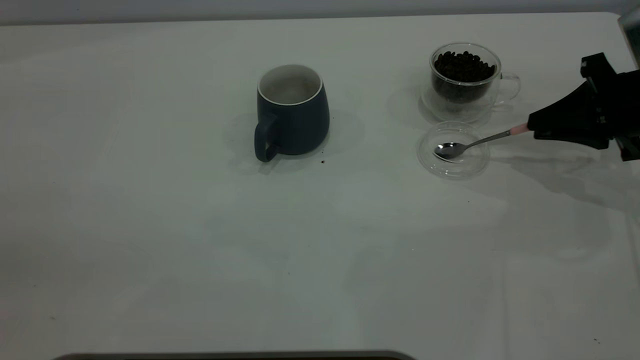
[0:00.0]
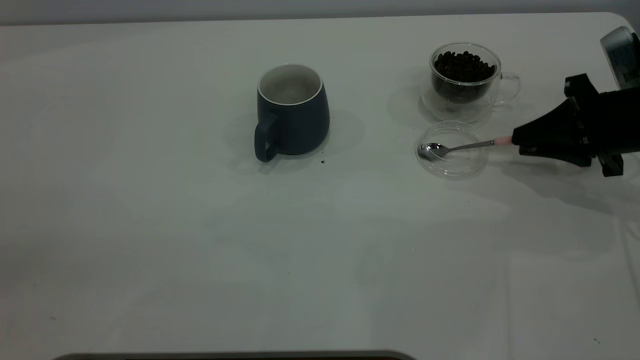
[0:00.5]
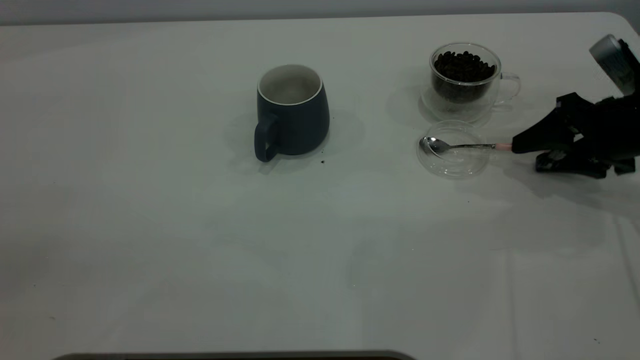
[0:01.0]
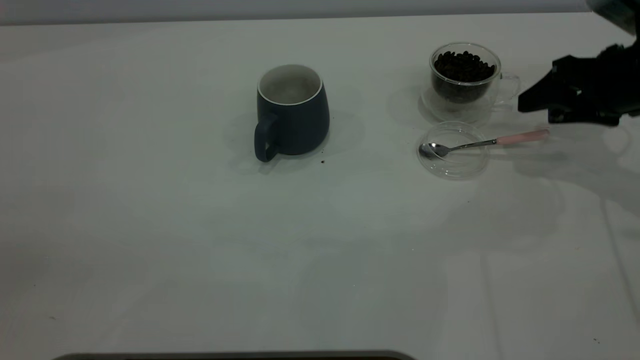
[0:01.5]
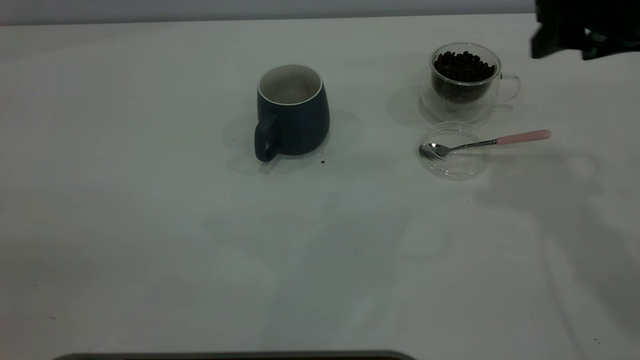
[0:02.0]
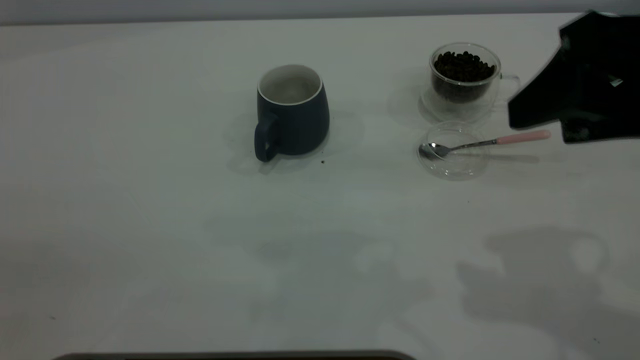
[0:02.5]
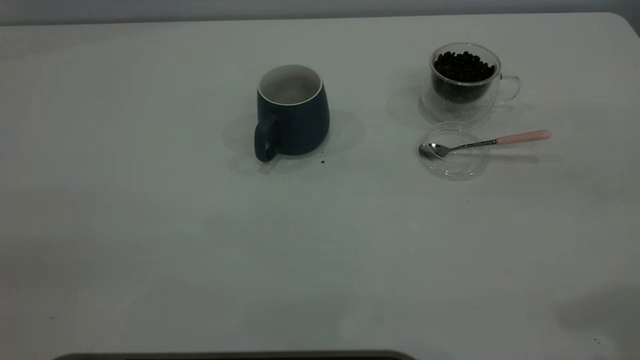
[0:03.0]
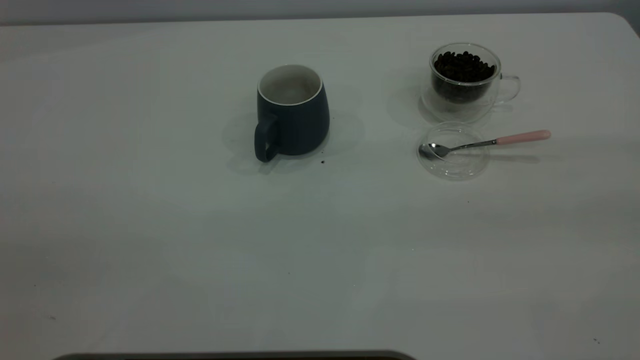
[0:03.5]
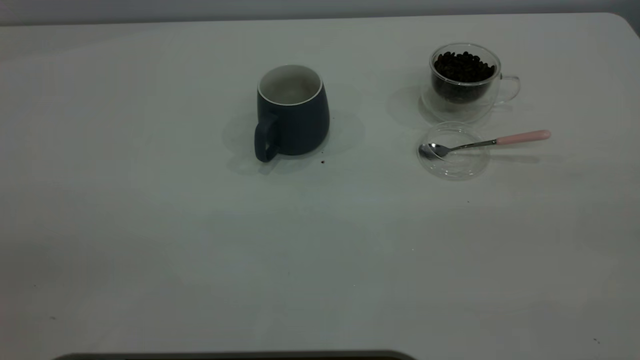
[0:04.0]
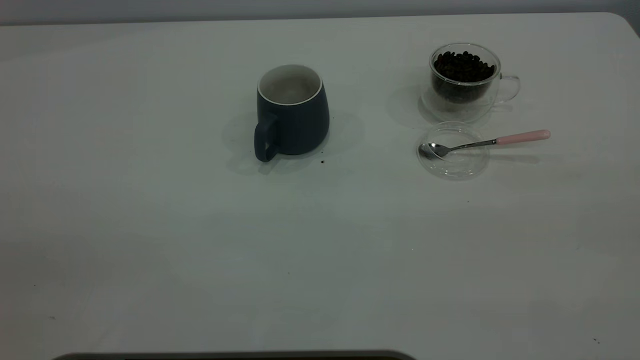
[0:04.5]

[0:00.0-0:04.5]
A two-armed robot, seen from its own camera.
Task of the whole recording: the left gripper place the grey cup in the center of the table, the right gripper take the pink spoon from the cup lid and scoop out the coffee beans from the coffee cup and put them into the grey cup, the right gripper put the spoon back into the cup lid.
Step, 0:00.0 to 0:01.5: Place the spoon back in its original place.
0:00.0 to 0:02.0: The right gripper goes roughly 20 cm upward and to the left, and opens up.
0:02.0 to 0:04.5: The right gripper shifts some 30 cm backward and upward.
